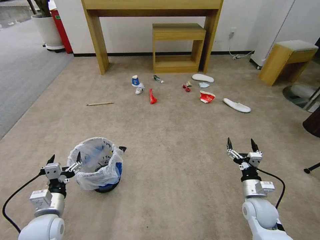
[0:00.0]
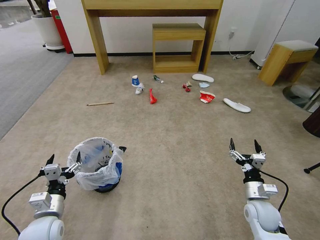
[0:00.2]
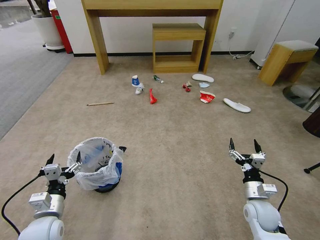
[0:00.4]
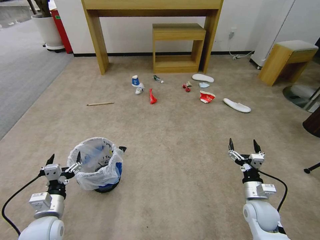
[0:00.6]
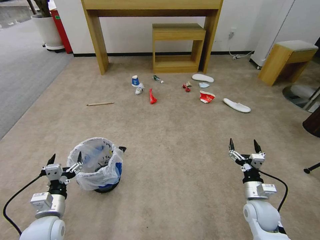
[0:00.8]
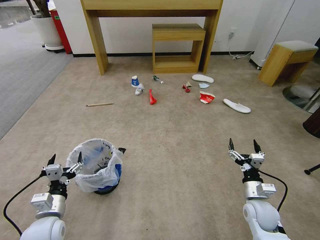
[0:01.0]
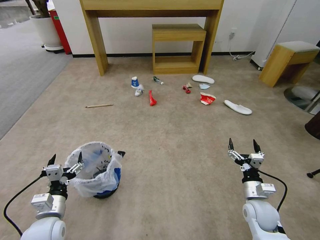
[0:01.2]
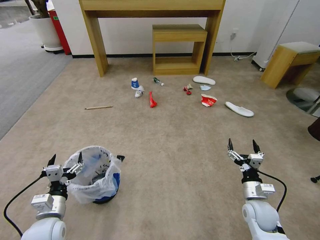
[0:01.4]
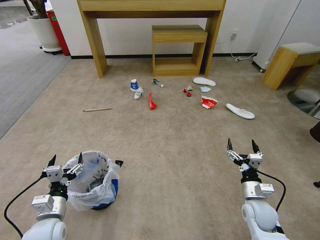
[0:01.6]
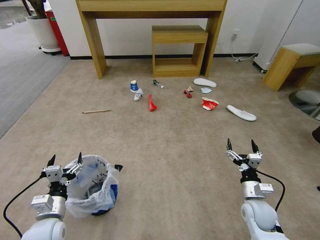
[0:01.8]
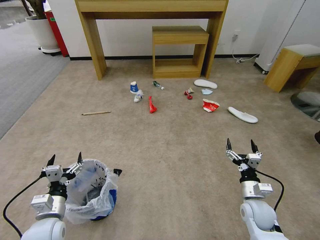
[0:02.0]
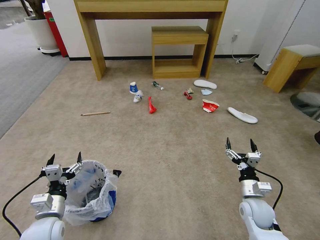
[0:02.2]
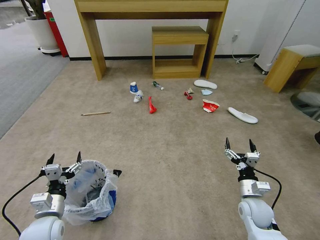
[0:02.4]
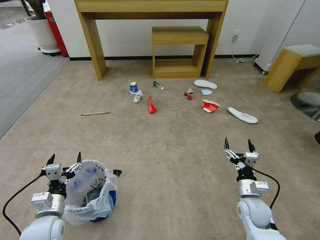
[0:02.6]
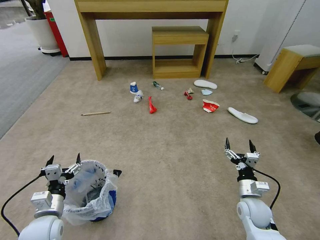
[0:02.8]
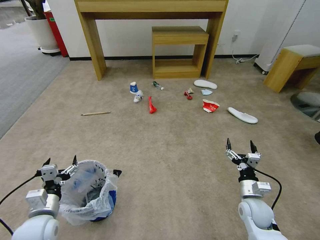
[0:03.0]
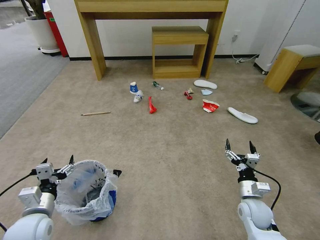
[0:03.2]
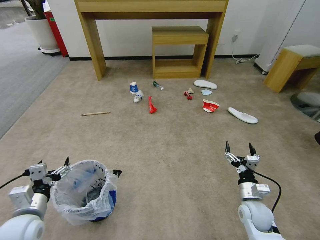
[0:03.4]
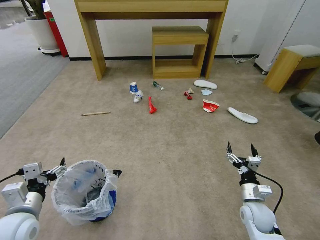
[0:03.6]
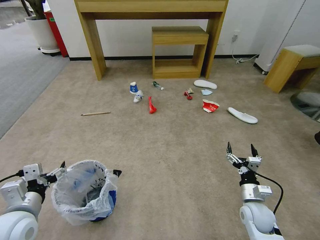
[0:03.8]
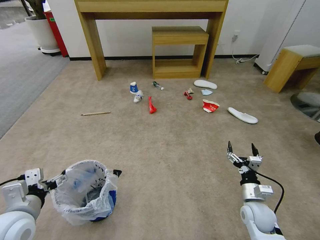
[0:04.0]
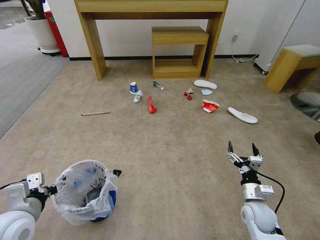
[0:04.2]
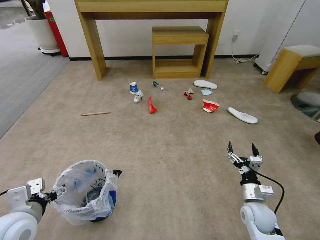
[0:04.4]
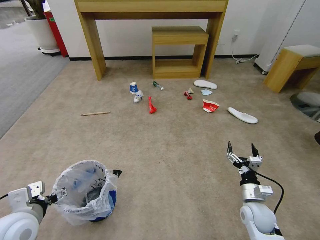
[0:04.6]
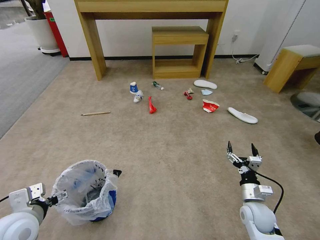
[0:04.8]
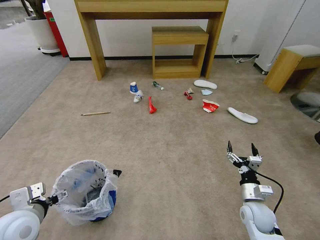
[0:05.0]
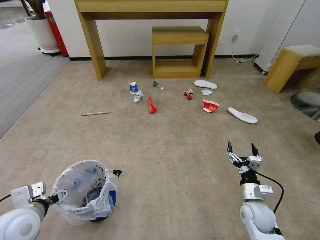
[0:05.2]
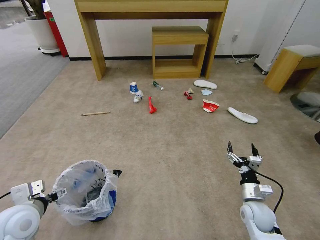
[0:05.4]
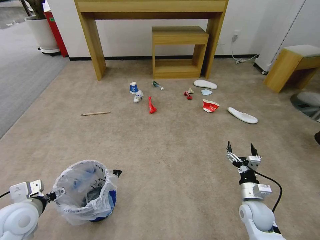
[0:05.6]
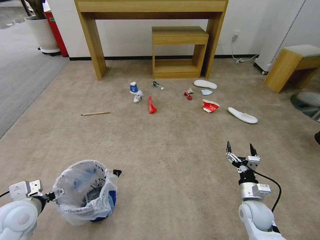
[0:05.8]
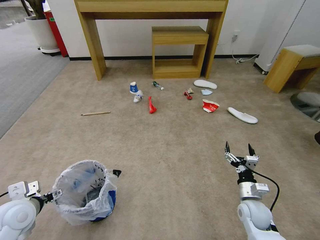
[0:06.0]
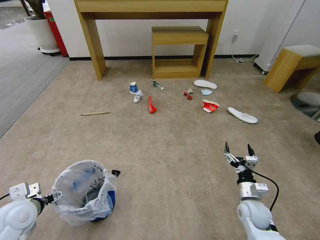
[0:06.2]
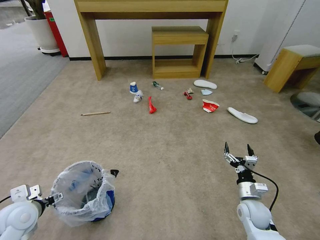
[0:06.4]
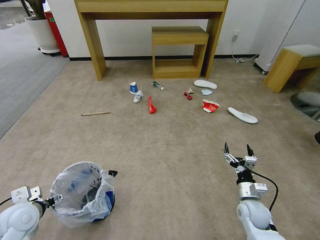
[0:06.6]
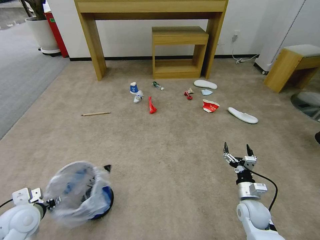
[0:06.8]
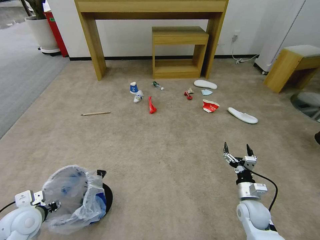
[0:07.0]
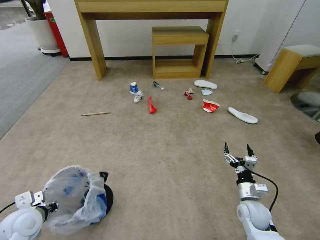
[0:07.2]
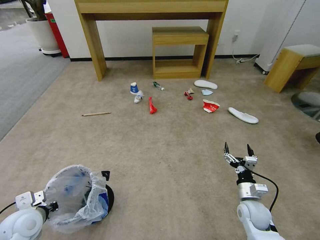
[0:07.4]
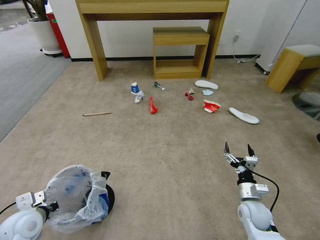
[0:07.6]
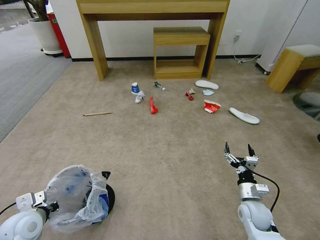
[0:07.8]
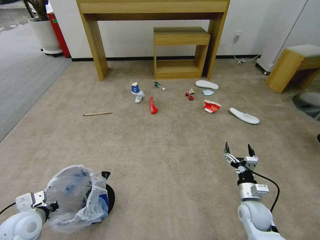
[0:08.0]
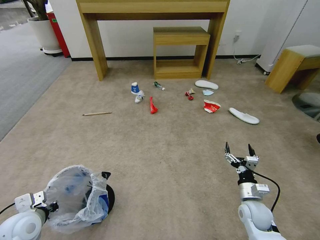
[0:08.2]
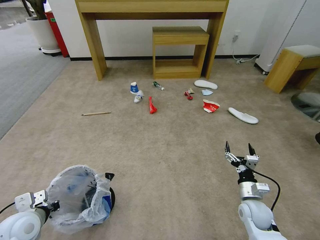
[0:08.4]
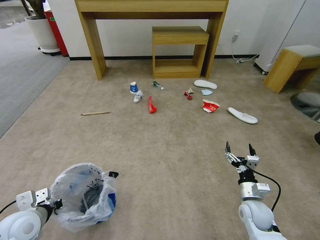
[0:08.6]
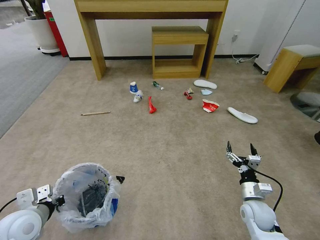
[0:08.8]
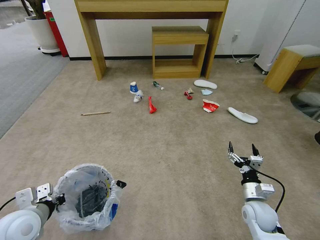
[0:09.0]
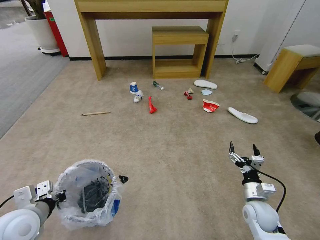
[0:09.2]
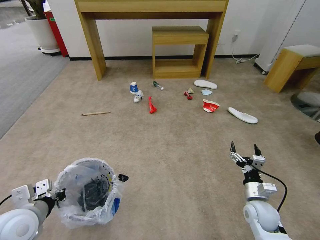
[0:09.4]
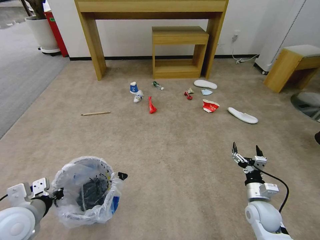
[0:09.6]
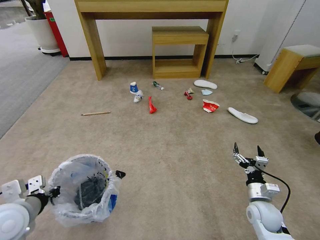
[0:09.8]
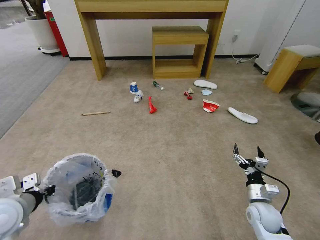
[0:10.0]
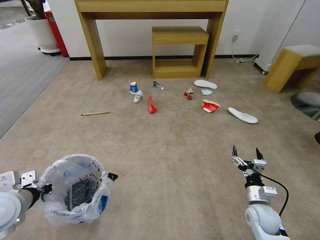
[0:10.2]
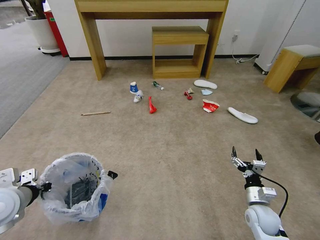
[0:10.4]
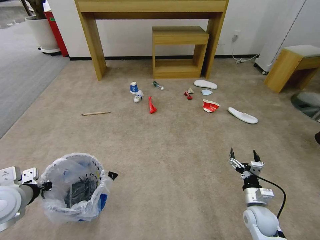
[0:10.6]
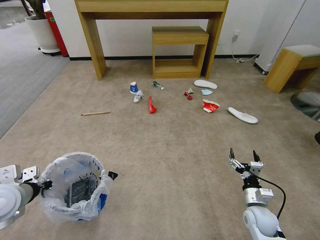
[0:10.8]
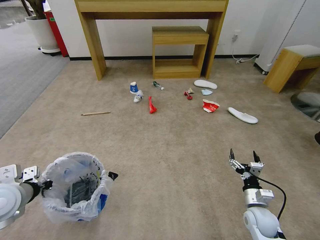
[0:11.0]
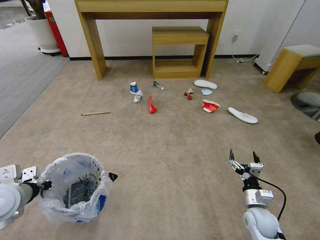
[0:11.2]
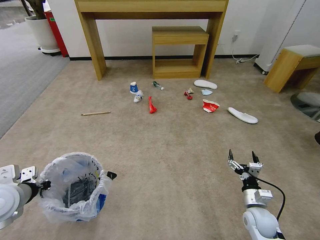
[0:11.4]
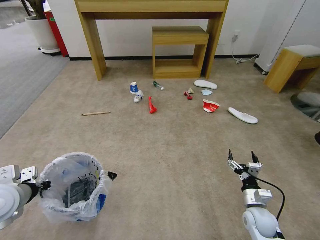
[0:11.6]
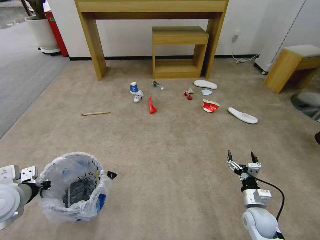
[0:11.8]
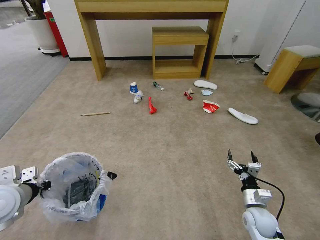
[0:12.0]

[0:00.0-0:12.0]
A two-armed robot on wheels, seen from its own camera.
Task of the whole recording: Pick up the trash bin and place the garbage on the floor into it.
0:01.6 to 0:03.0: There are only small adjustments of the grippers.
0:03.0 to 0:04.4: The left gripper moves upward, approximately 10 cm.
0:04.4 to 0:06.0: The left gripper ends up about 5 cm from where it was.
0:06.0 to 0:07.6: The left gripper closes.
0:07.6 to 0:09.0: The left gripper moves upward, roughly 5 cm.
0:09.0 to 0:10.4: The left gripper heads upward, covering about 5 cm.
0:10.4 to 0:12.0: The grippers make only small movements.

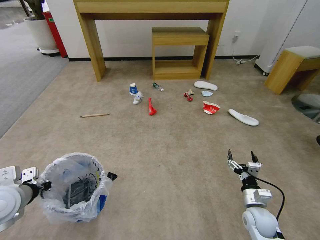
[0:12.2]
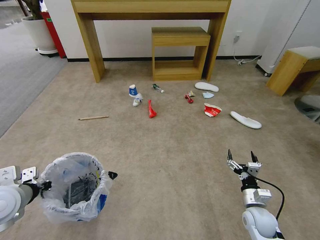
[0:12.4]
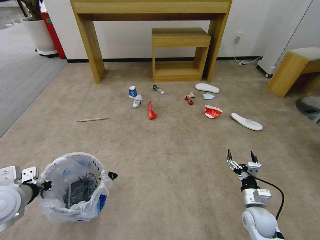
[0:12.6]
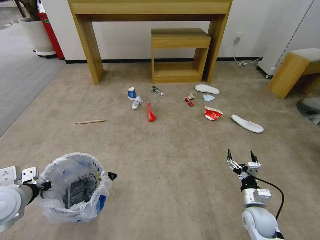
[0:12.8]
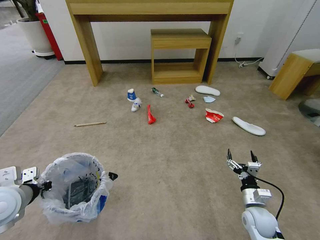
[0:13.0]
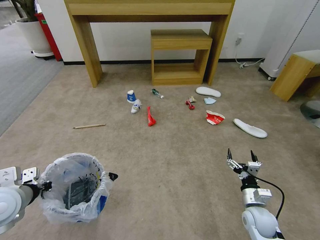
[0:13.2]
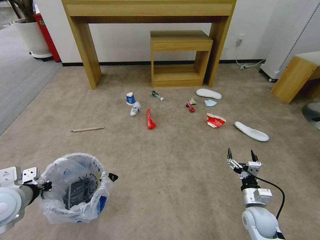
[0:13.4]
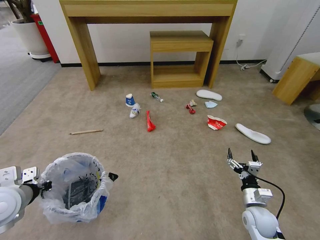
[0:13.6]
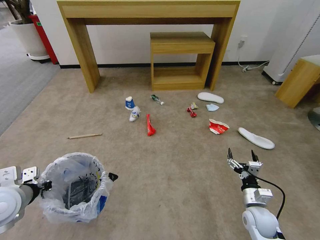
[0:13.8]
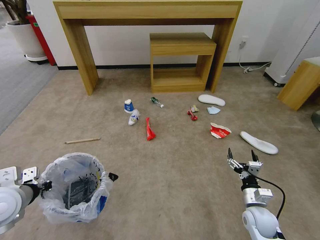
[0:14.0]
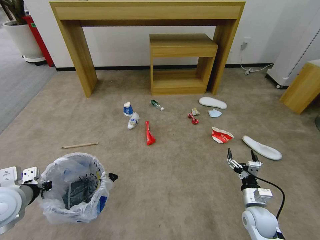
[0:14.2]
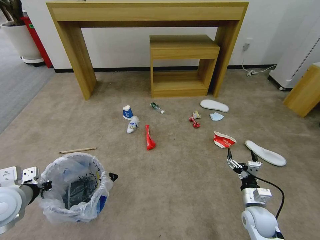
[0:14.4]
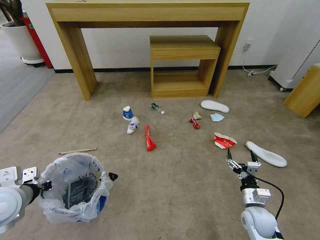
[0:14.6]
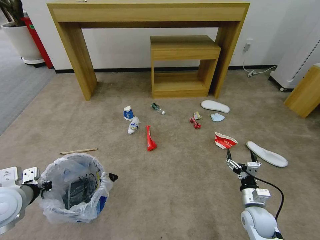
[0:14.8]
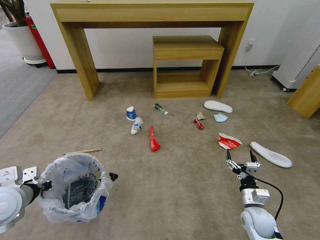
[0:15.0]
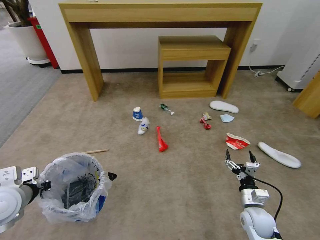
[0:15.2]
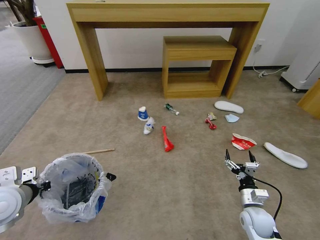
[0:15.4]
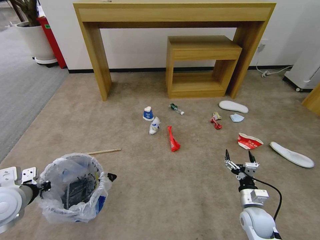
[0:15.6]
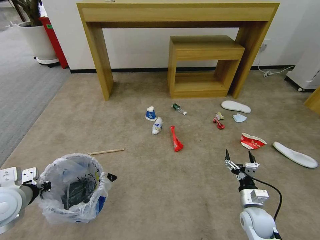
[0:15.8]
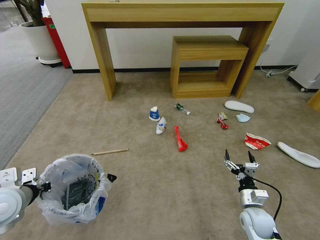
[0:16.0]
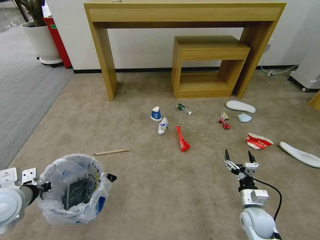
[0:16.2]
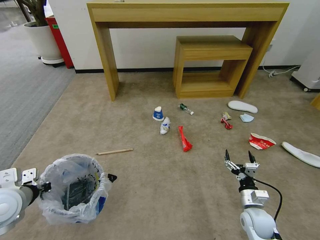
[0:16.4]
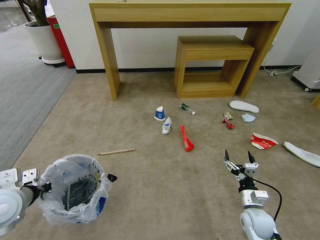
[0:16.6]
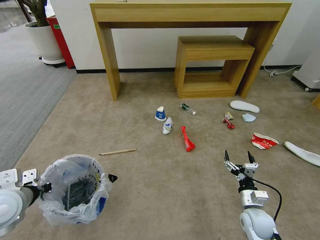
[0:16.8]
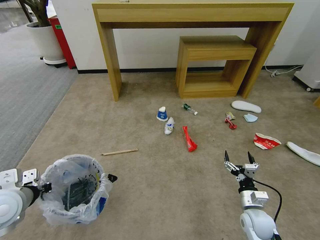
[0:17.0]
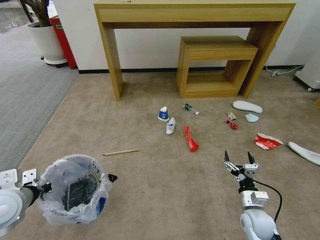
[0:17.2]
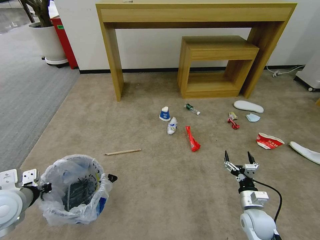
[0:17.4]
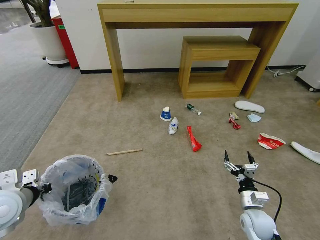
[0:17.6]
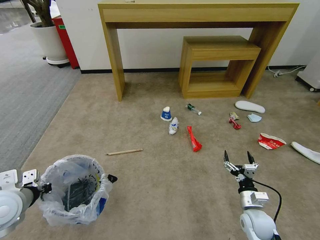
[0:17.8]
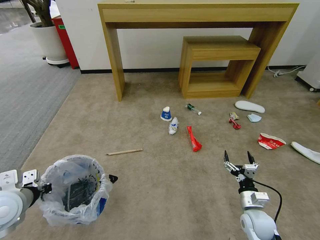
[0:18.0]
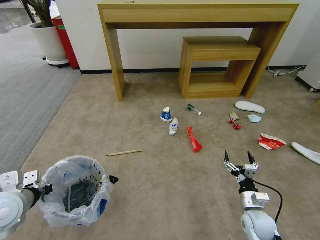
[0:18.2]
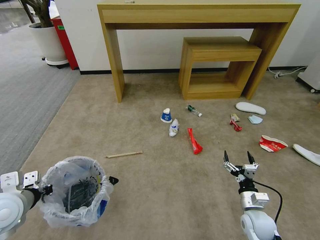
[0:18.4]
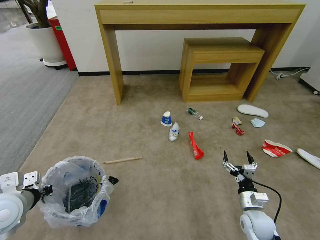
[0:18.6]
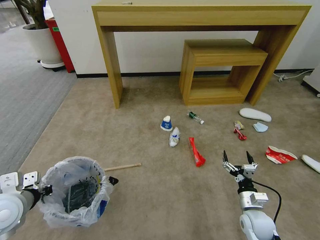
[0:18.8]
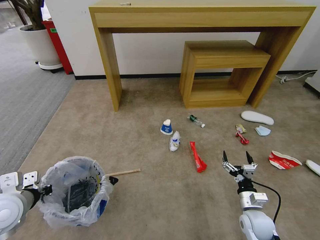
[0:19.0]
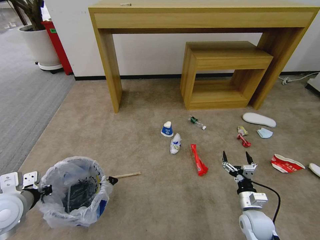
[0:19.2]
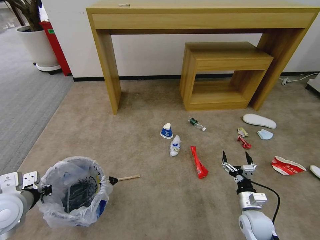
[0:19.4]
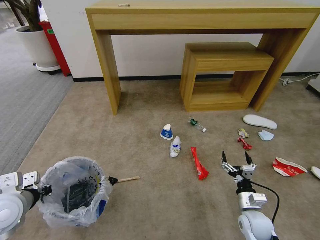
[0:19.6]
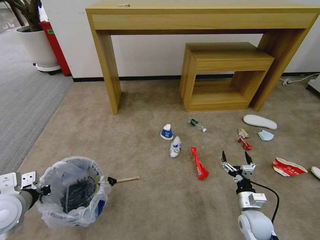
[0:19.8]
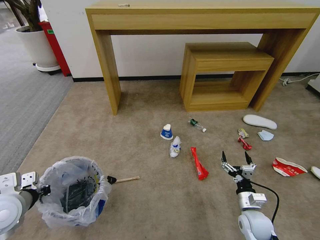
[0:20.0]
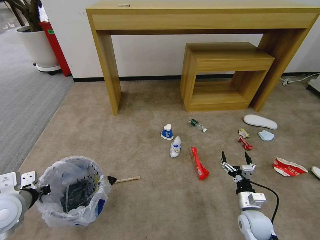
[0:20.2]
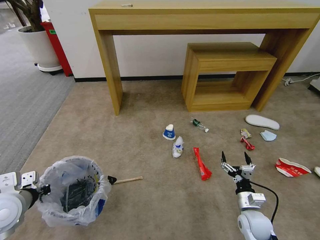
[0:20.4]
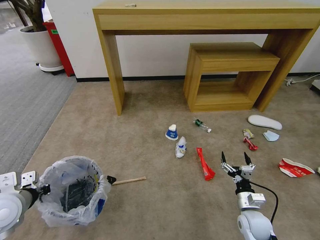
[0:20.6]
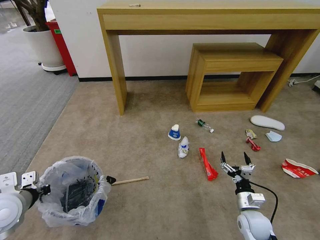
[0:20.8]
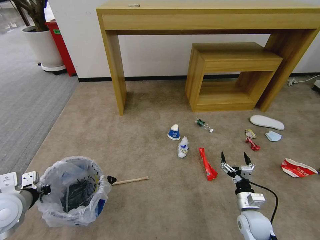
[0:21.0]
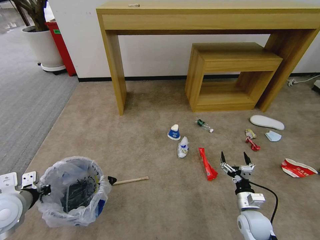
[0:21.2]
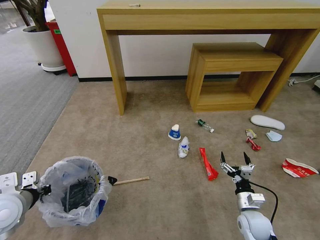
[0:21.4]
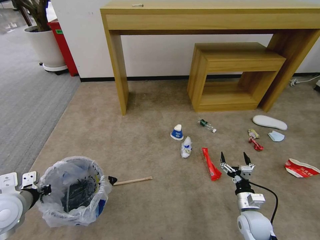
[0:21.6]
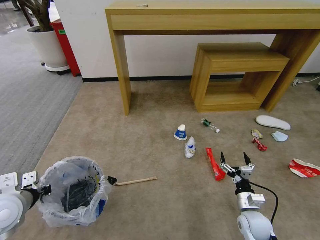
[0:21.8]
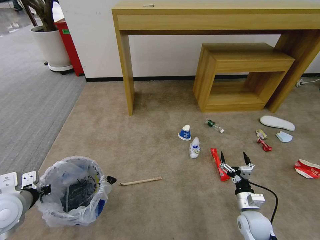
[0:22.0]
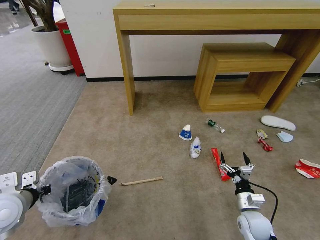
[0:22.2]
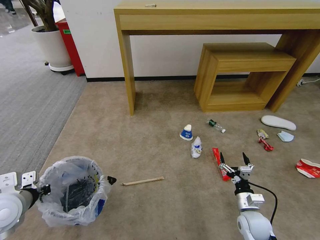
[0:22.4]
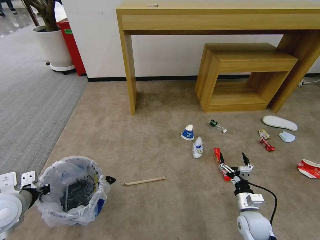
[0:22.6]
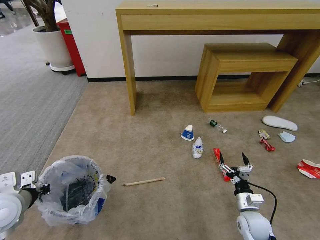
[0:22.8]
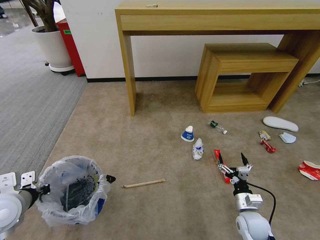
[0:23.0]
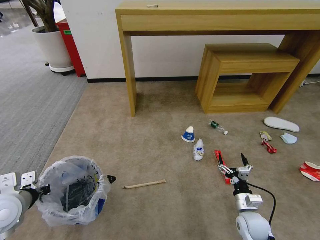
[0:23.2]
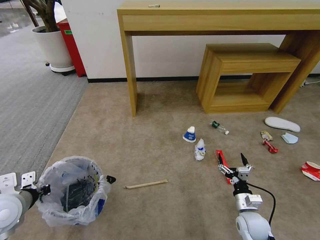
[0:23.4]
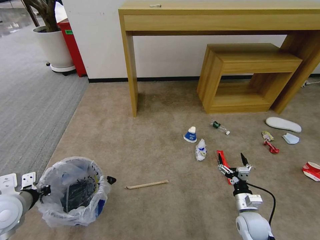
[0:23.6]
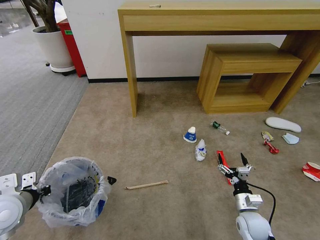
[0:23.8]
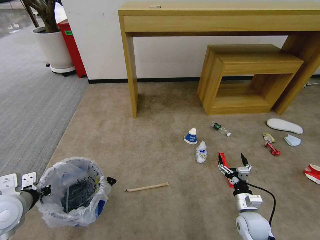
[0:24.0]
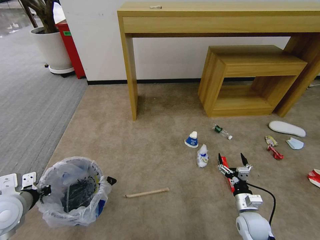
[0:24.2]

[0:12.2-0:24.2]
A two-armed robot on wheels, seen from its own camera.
Task of the whole recording: Pick up the trash bin and place the garbage on the floor into it.
0:16.6 to 0:18.2: Both grippers stay about where they are.
0:19.8 to 0:24.2: The two grippers keep their place.
